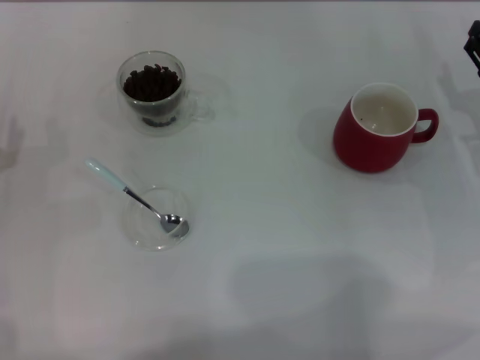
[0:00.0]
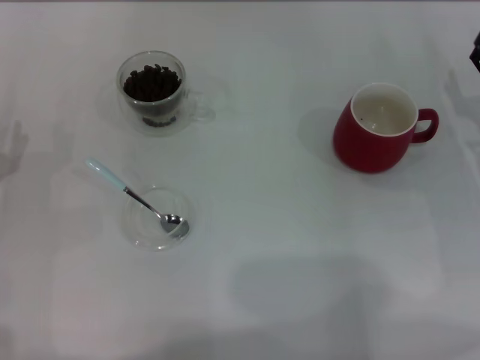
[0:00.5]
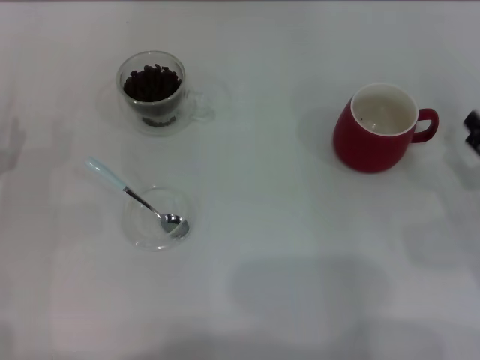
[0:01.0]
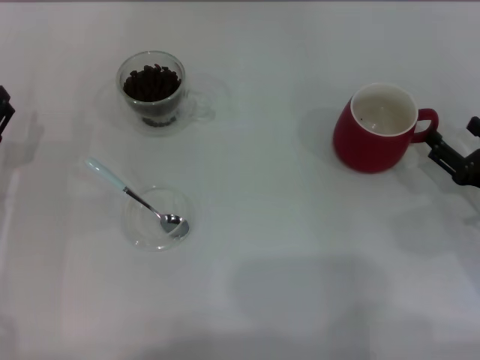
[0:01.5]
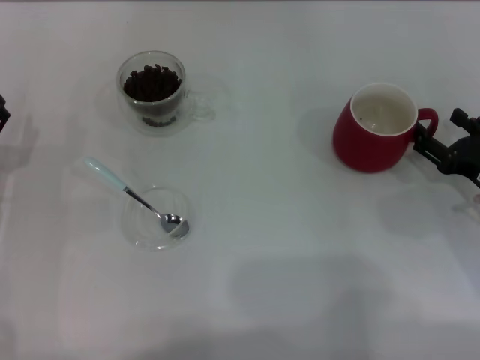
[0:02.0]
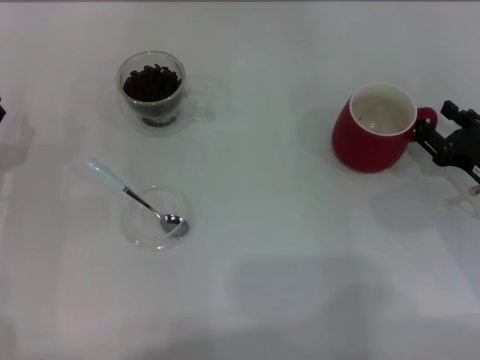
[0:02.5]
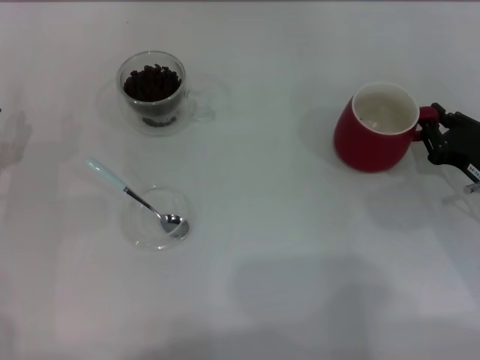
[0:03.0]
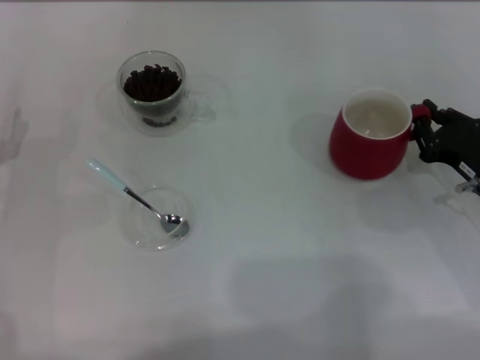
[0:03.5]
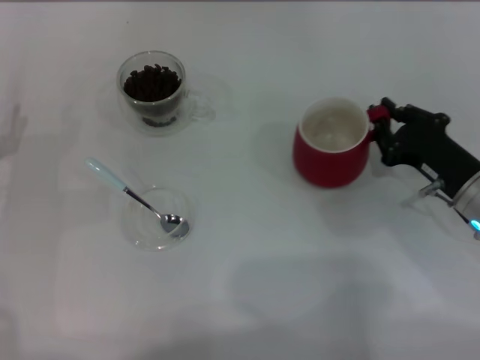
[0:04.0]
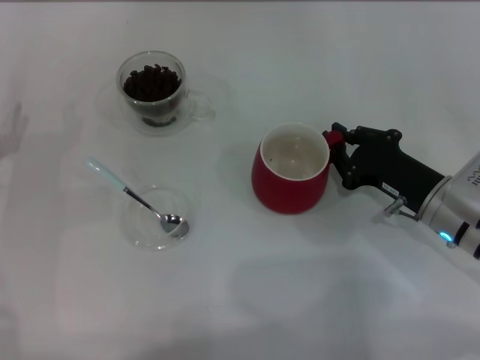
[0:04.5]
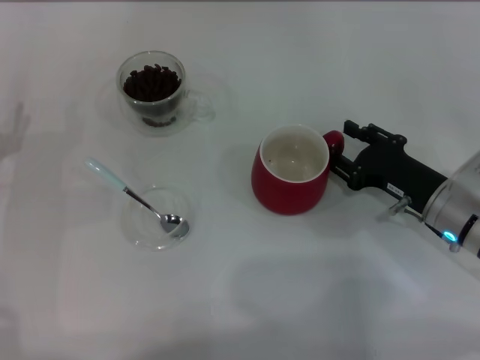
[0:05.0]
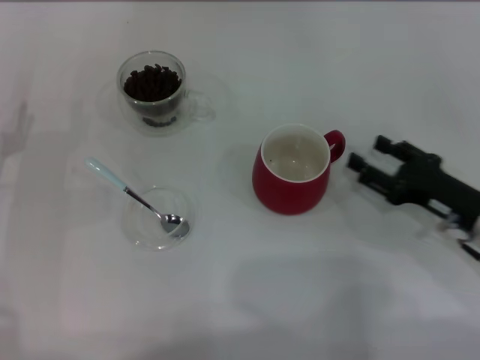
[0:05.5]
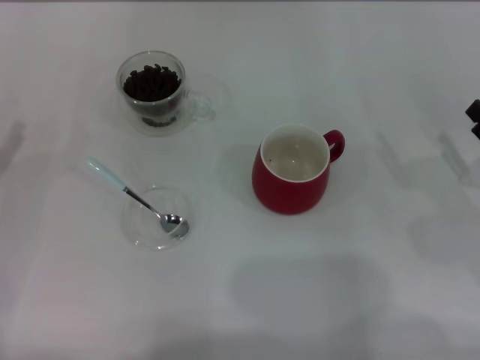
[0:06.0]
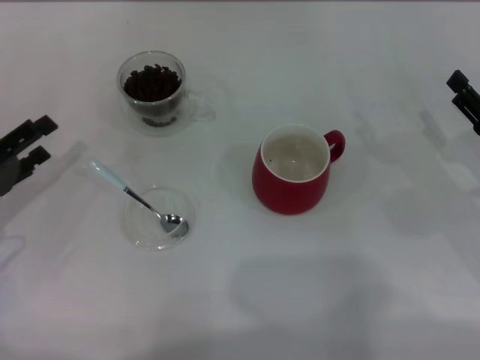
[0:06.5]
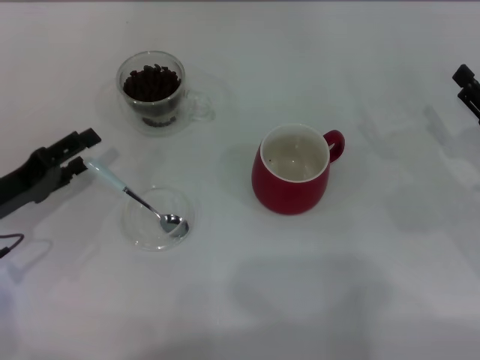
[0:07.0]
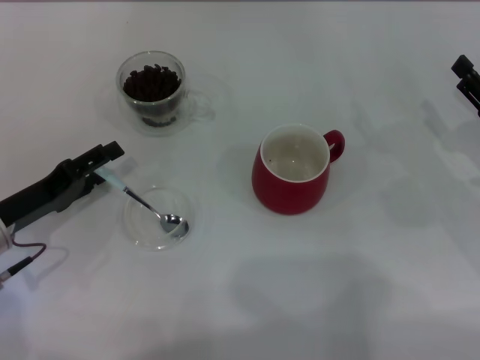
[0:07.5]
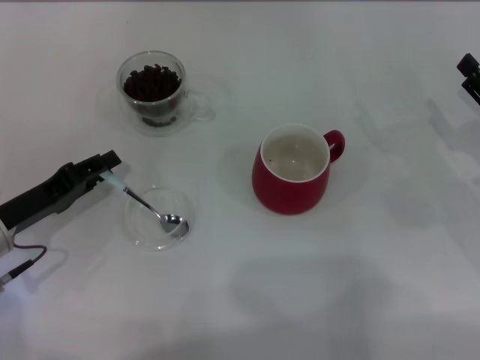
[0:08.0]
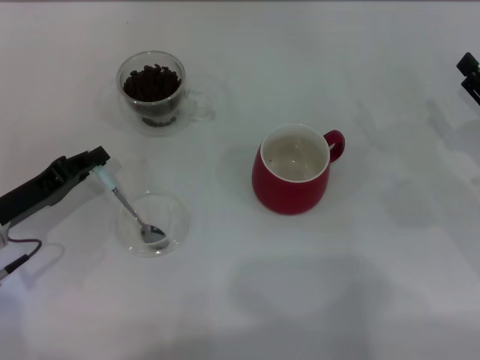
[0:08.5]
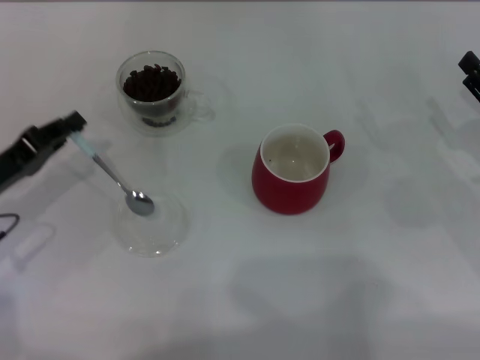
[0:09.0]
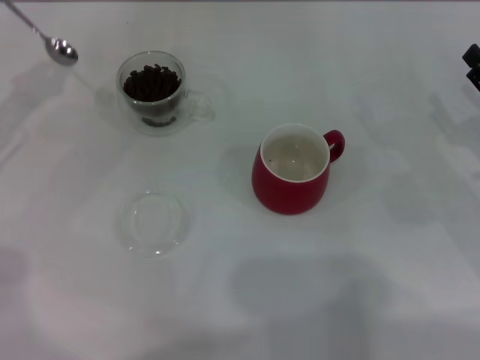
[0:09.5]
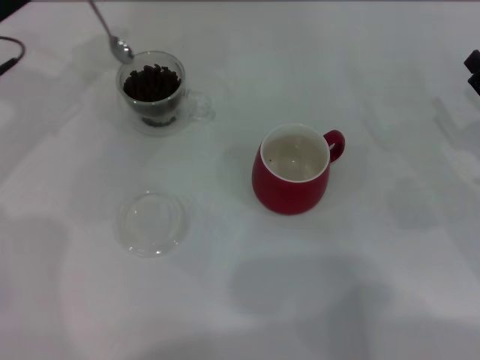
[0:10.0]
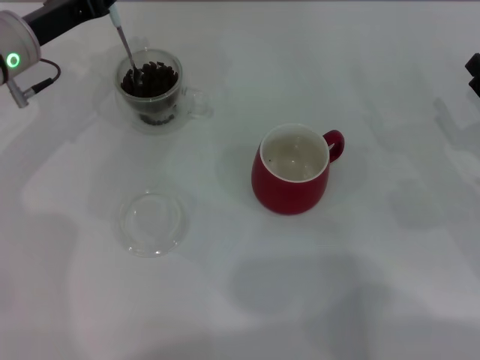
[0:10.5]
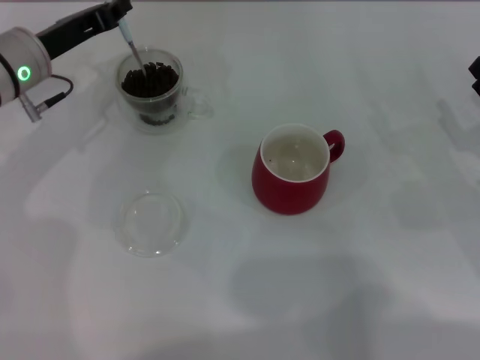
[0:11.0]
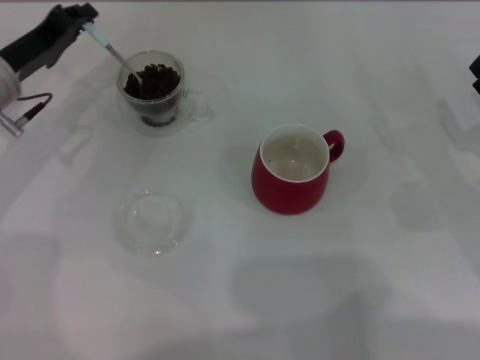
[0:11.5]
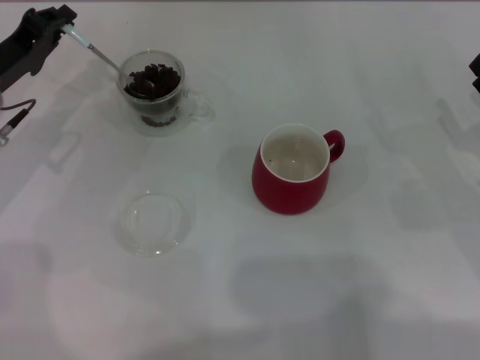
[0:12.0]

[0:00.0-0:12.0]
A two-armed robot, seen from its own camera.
Task of the whole recording: Use a blue spoon to take out the coffee beans from the glass and pour them into the red cup.
Step, 0:00.0 to 0:05.5: Move the cup to the center of view with the left gripper.
Step, 0:06.0 to 0:09.0: Pick up the spoon with the right gripper.
0:00.0 to 0:02.0: The right gripper goes some 5 cm backward.
0:02.0 to 0:04.0: The right gripper goes about 5 cm to the left, and closes its fingers.
0:04.0 to 0:06.0: The right gripper shifts about 10 cm to the right and backward, and opens its fingers.
0:06.0 to 0:08.0: The left gripper goes about 5 cm to the right.
0:08.0 to 0:10.0: The left gripper travels forward and upward by about 20 cm, and closes.
0:10.0 to 0:12.0: The left gripper ends up roughly 5 cm from where it was.

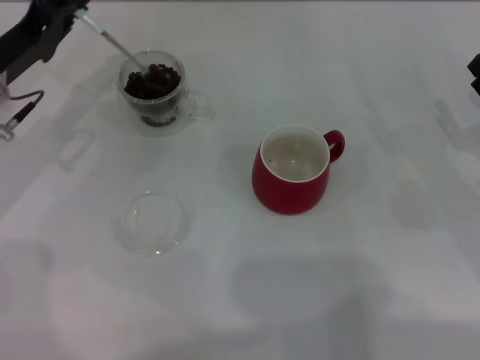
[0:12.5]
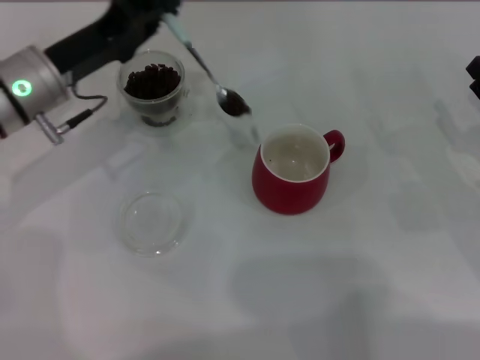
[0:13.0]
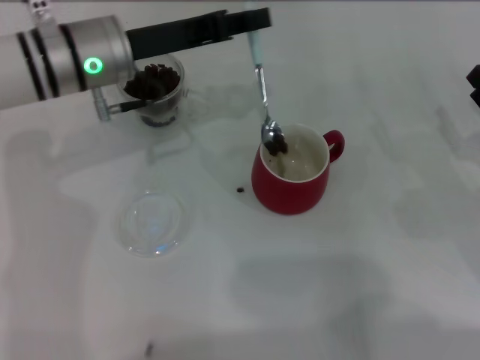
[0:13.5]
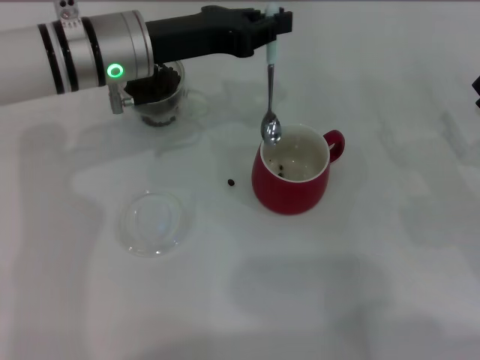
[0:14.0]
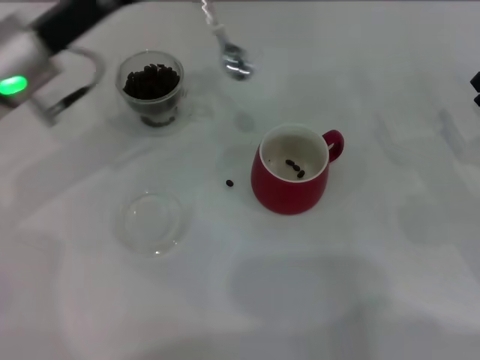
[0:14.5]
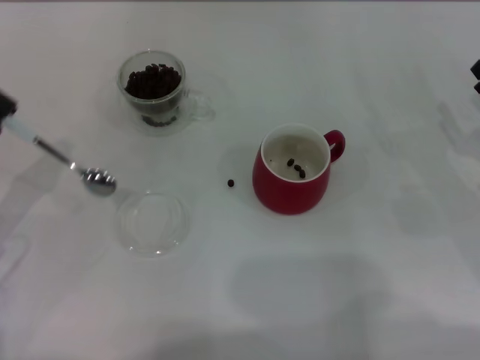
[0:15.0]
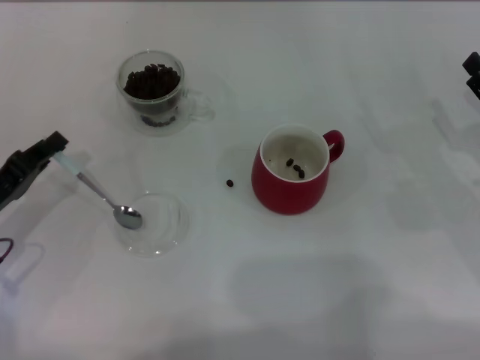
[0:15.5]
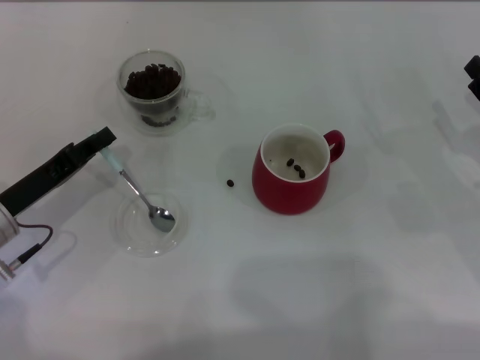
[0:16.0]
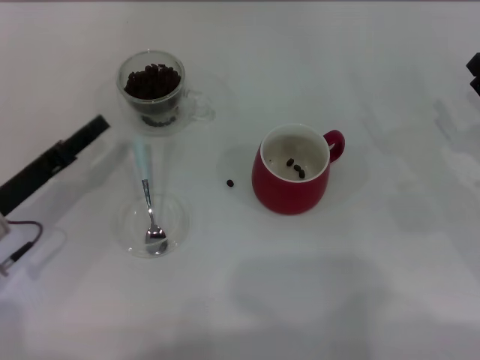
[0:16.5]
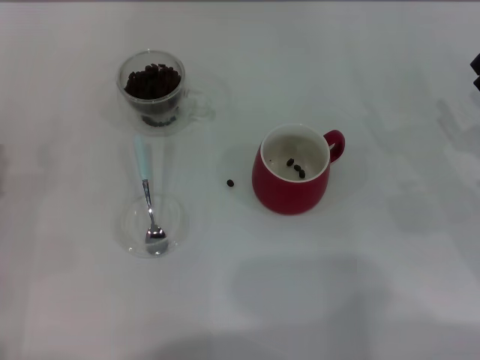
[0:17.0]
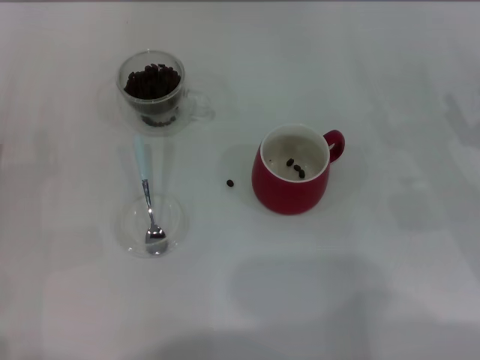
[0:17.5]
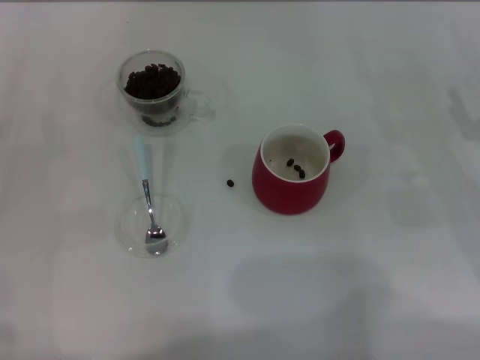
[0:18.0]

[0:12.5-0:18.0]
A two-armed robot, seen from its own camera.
Task of the whole recording: Use a blue spoon to take out the coffee beans from the glass and pour them into the red cup.
0:12.5 to 0:14.5: The left gripper goes some 5 cm to the right.
0:14.5 to 0:16.0: The left gripper shifts some 15 cm downward, backward and to the left.
0:16.0 to 0:18.0: The left gripper is displaced to the left by roughly 5 cm, and opens its fingers.
